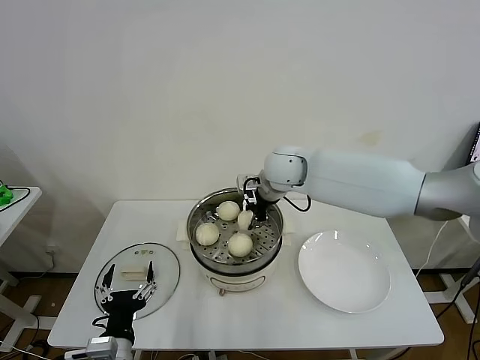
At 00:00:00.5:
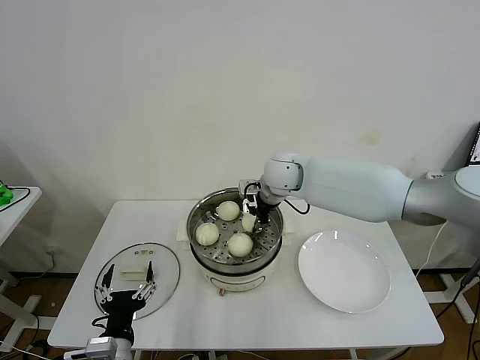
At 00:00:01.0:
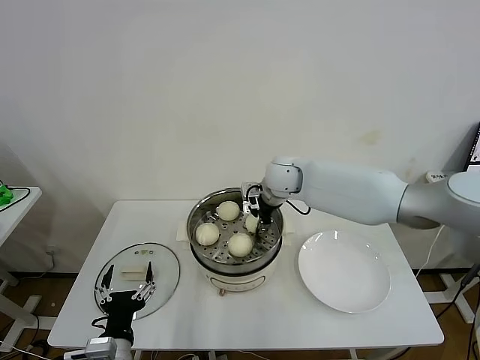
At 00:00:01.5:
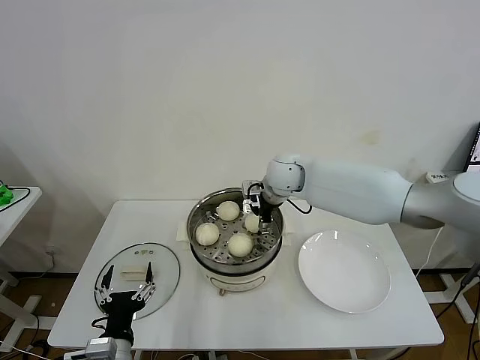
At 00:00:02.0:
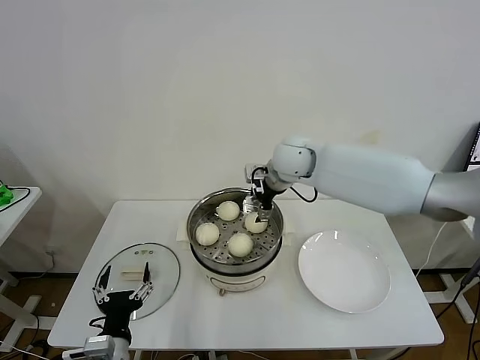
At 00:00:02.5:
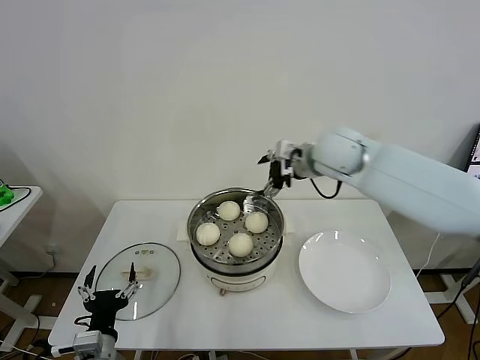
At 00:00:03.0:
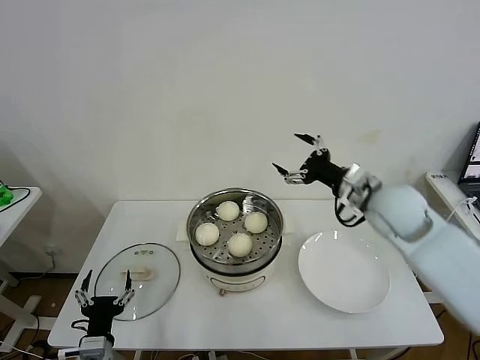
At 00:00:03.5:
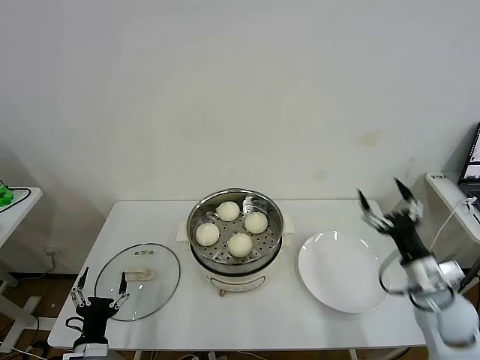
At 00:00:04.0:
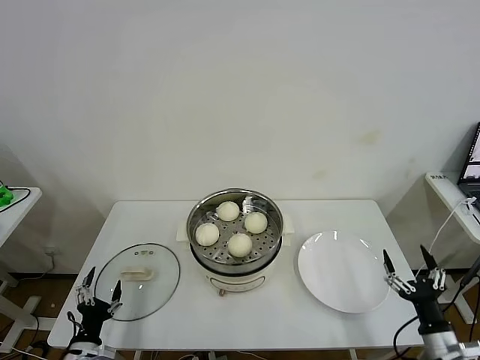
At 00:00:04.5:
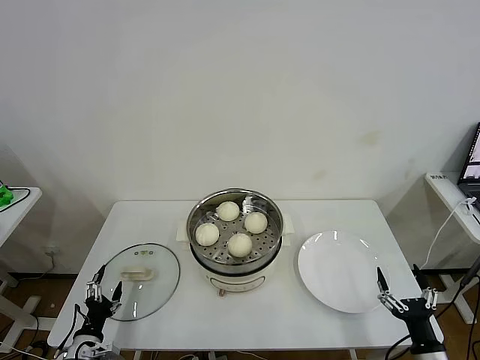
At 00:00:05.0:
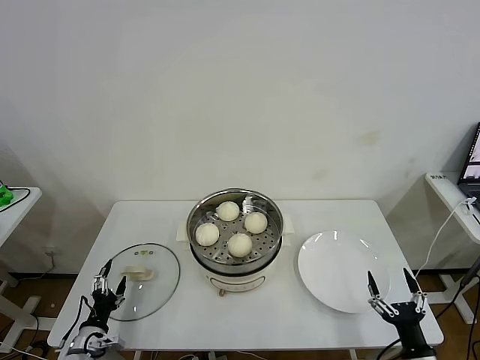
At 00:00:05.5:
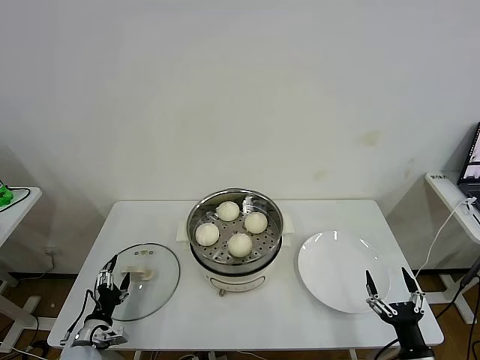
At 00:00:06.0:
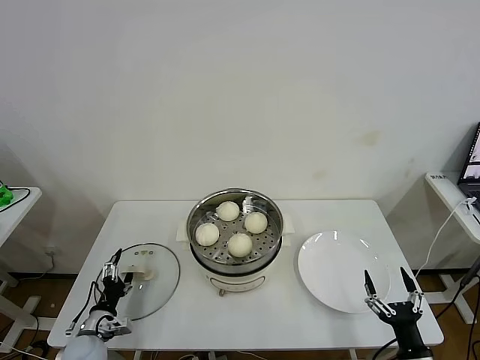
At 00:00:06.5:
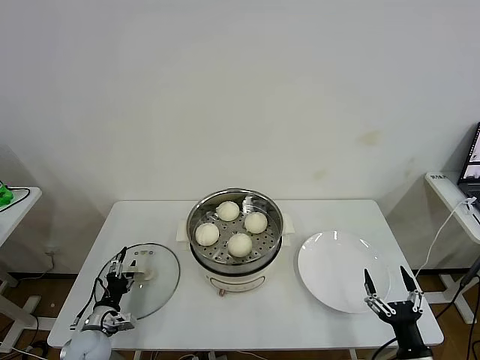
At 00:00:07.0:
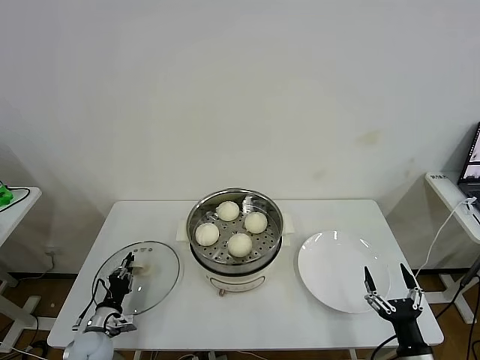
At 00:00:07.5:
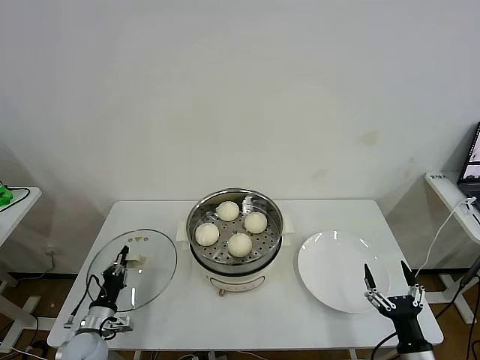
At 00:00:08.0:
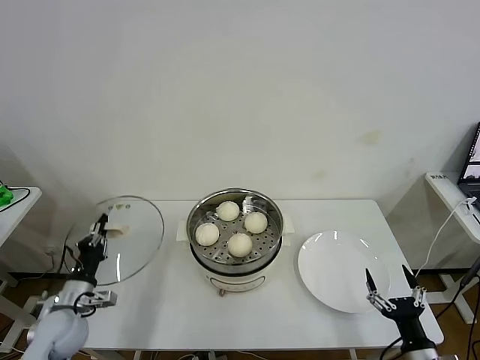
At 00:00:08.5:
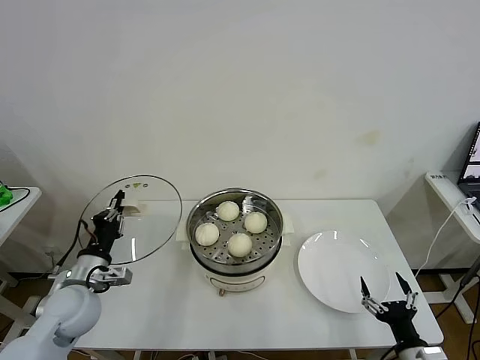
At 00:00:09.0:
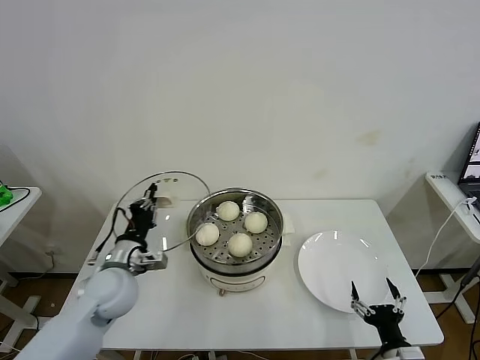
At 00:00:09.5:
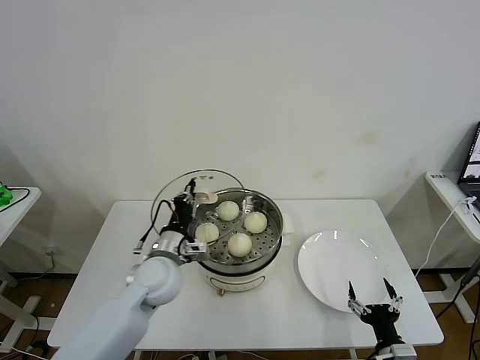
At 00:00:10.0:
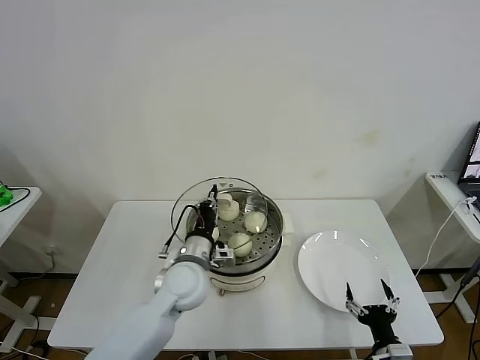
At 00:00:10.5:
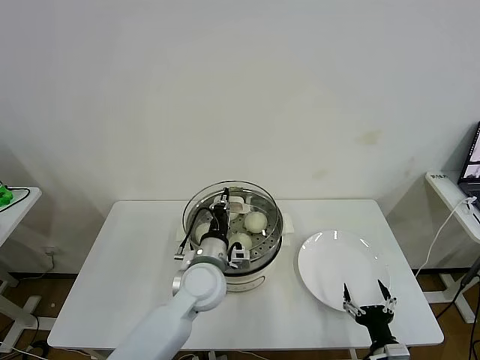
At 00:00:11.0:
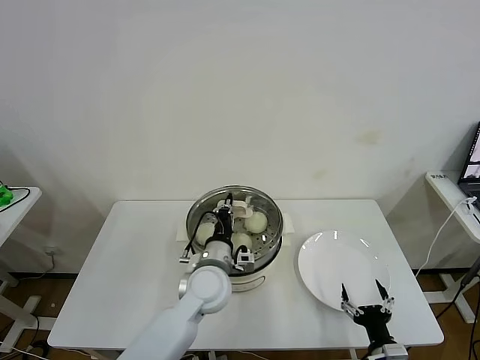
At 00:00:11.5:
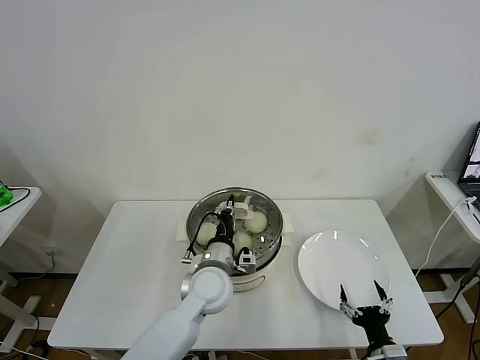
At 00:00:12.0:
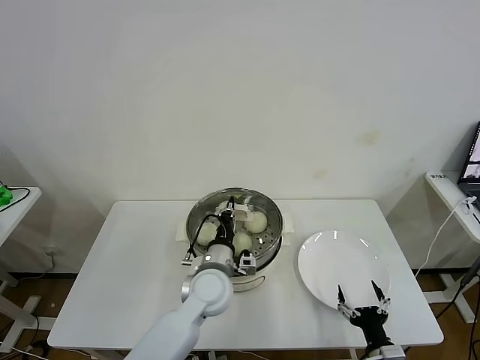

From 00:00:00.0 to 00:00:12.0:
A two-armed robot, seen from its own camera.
Task of the whole recording: take steamed baozi put them in steamer then cover it.
Step, from 00:00:02.0 to 00:00:07.0: Grasp the pot lid with left gripper.
From 00:00:00.0 to 00:00:02.0: The right gripper opens up.
From 00:00:02.0 to 00:00:04.0: The left gripper goes approximately 15 cm to the left and downward; the right gripper moves backward, to the right and downward, roughly 60 cm.
From 00:00:04.0 to 00:00:06.0: The left gripper shifts approximately 10 cm forward. The right gripper moves to the left, approximately 5 cm.
From 00:00:06.0 to 00:00:08.0: The left gripper goes roughly 10 cm upward, and closes.
From 00:00:08.0 to 00:00:10.0: The right gripper goes approximately 5 cm to the left. Meanwhile the left gripper is displaced to the right by some 25 cm.
From 00:00:10.0 to 00:00:12.0: The left gripper heads to the right, covering some 5 cm.

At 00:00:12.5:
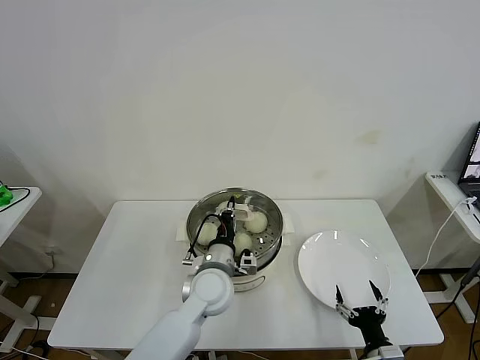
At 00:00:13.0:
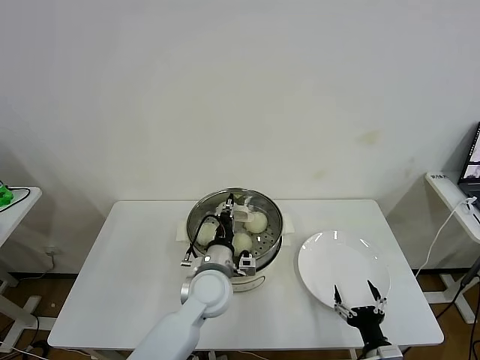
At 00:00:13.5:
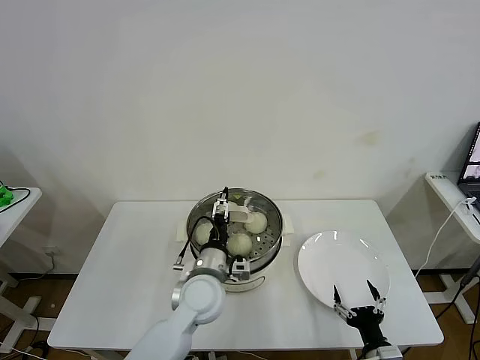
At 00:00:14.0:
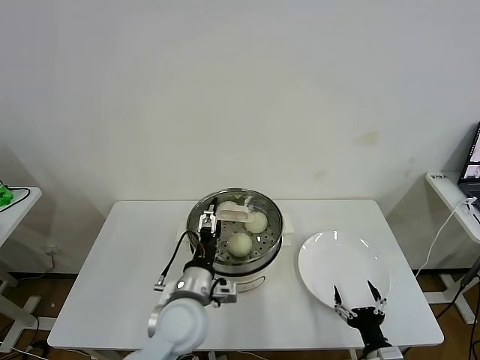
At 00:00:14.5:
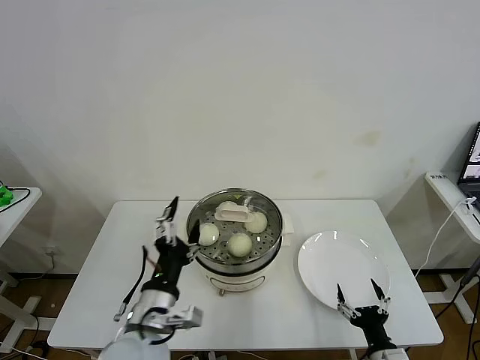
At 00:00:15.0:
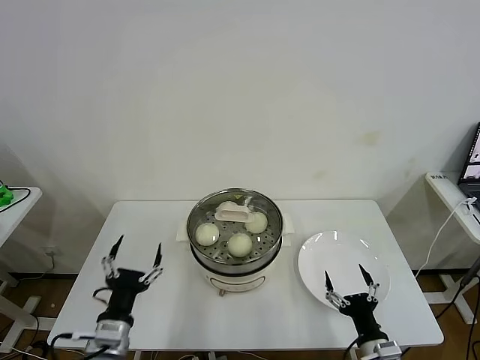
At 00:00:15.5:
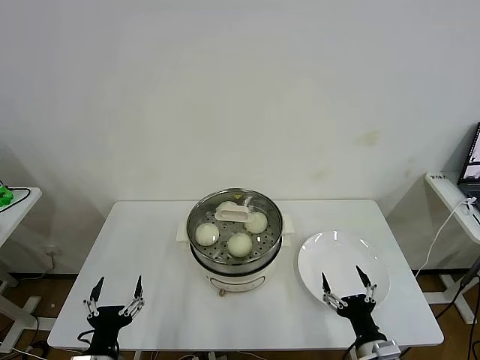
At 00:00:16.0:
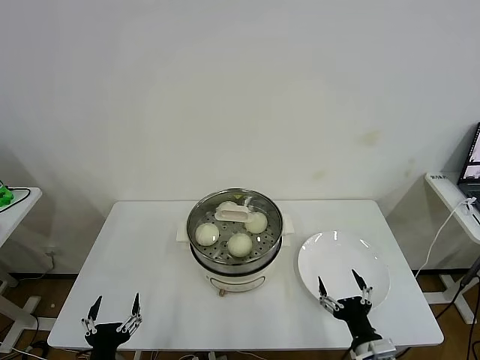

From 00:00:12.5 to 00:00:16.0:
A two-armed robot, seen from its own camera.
Task of the whole recording: take steamed baozi put them in steamer then cover it.
From 00:00:12.5 to 00:00:14.5: The left gripper moves backward, to the left and upward, about 20 cm, and opens up.
From 00:00:14.5 to 00:00:16.0: The left gripper moves downward, to the left and backward, approximately 20 cm, while the right gripper shifts by some 5 cm.
